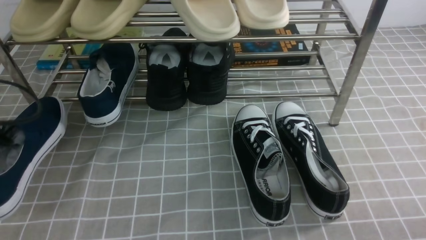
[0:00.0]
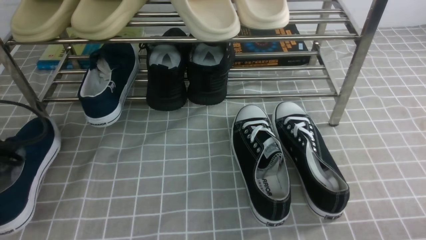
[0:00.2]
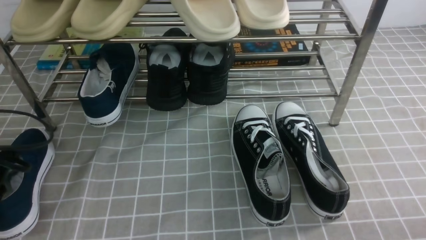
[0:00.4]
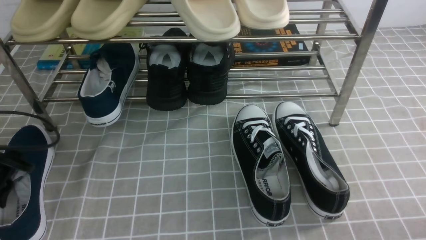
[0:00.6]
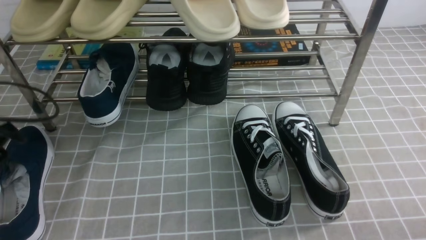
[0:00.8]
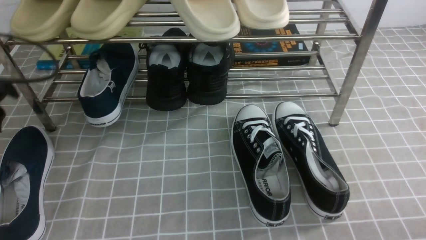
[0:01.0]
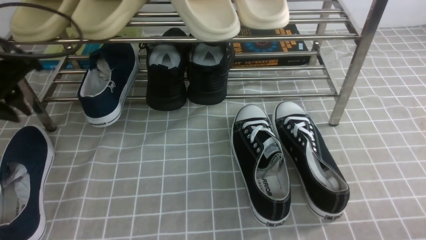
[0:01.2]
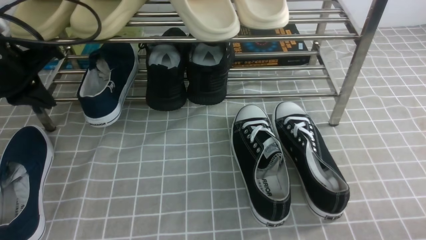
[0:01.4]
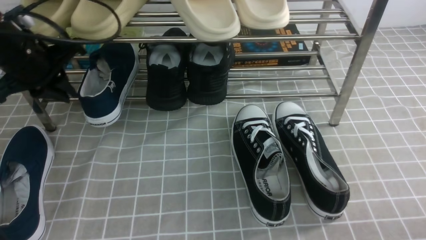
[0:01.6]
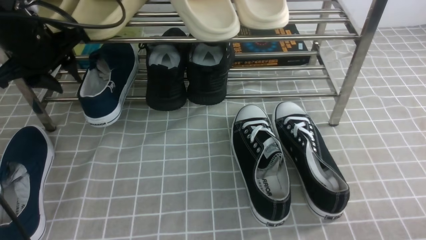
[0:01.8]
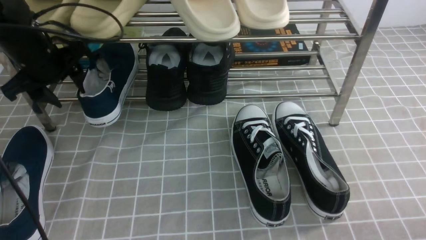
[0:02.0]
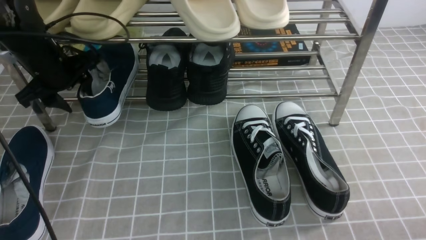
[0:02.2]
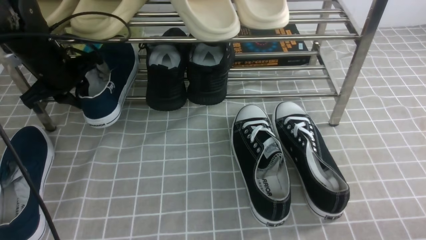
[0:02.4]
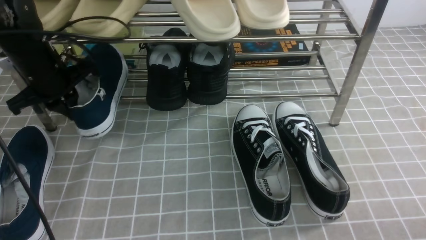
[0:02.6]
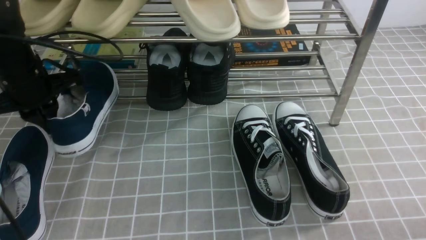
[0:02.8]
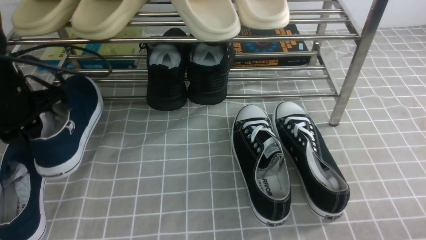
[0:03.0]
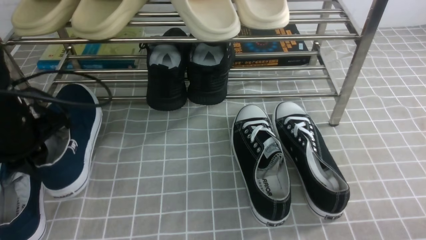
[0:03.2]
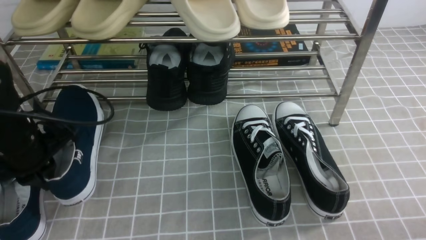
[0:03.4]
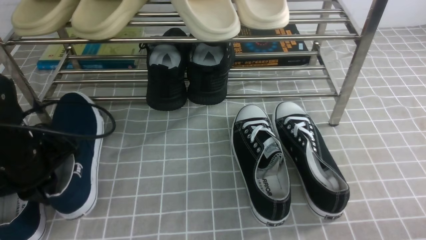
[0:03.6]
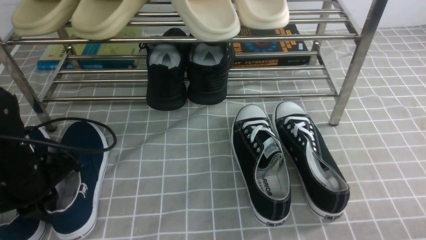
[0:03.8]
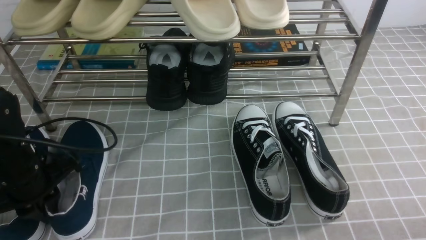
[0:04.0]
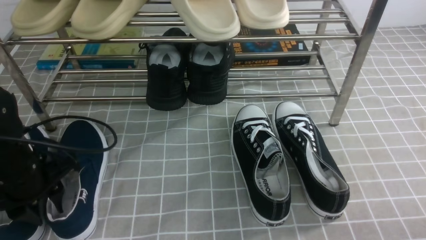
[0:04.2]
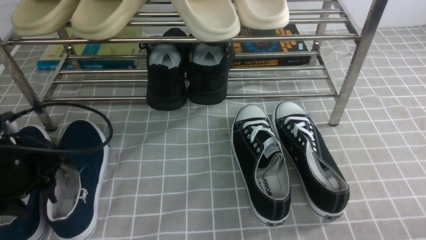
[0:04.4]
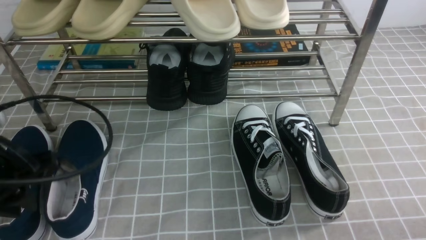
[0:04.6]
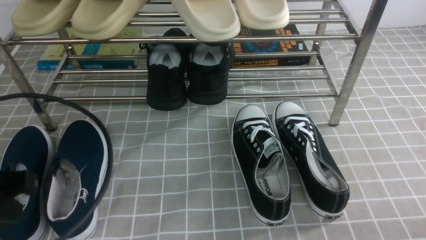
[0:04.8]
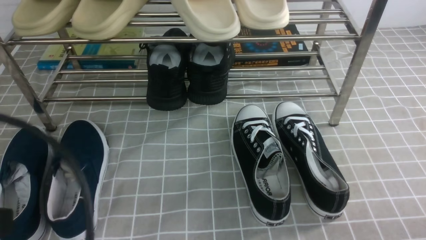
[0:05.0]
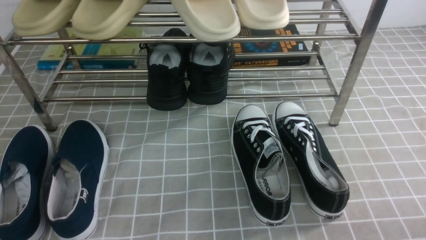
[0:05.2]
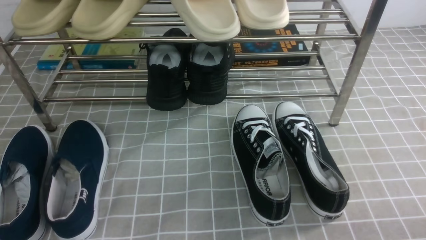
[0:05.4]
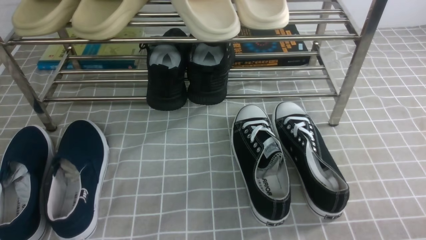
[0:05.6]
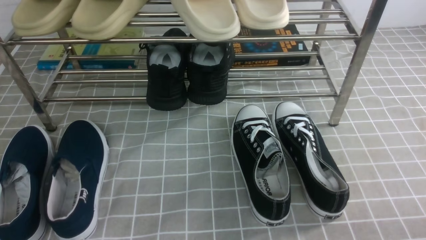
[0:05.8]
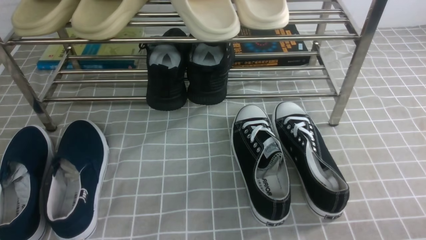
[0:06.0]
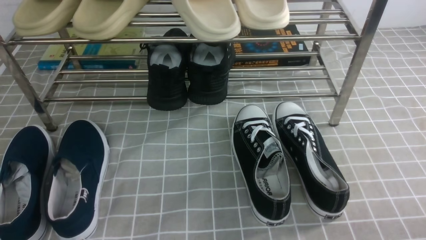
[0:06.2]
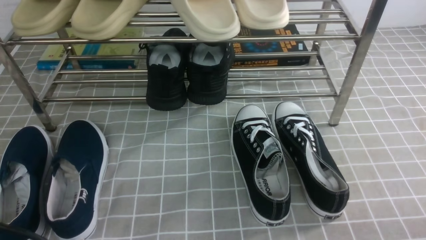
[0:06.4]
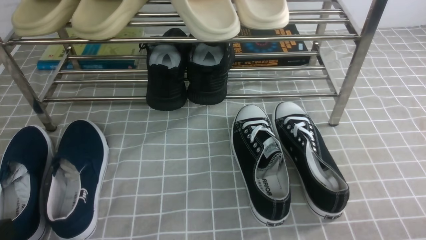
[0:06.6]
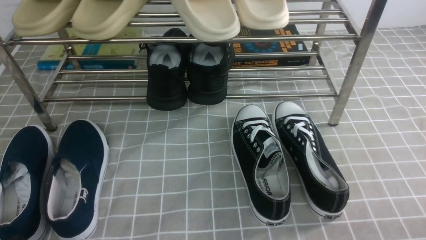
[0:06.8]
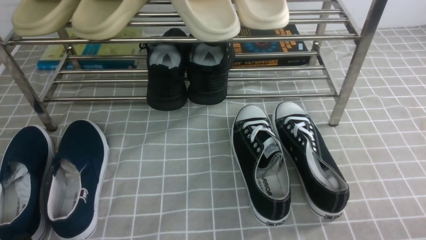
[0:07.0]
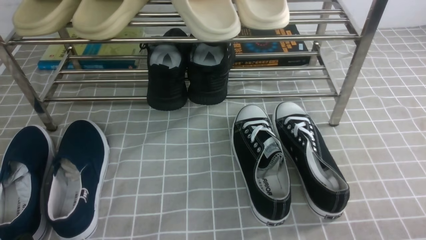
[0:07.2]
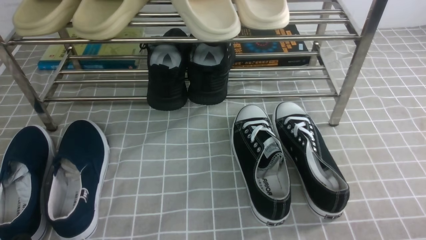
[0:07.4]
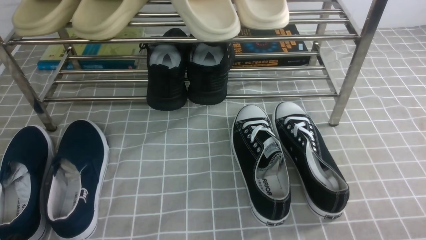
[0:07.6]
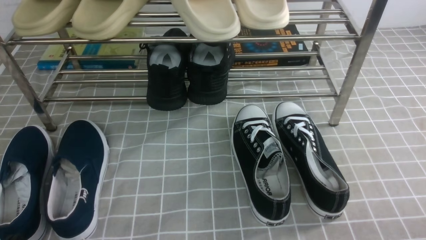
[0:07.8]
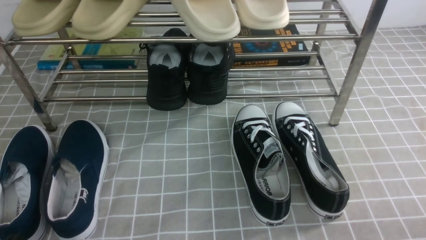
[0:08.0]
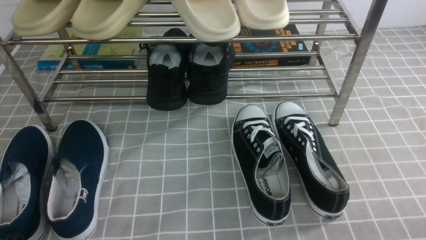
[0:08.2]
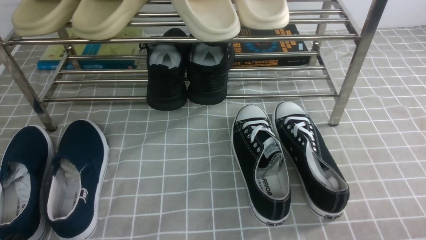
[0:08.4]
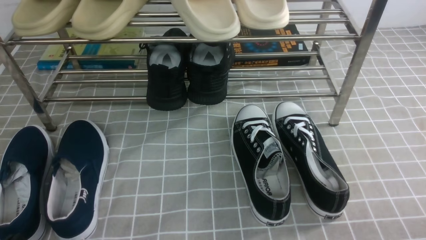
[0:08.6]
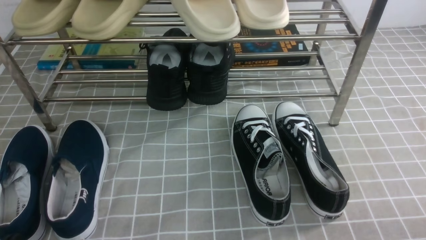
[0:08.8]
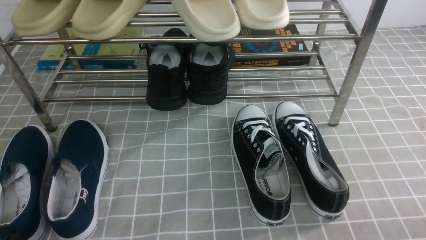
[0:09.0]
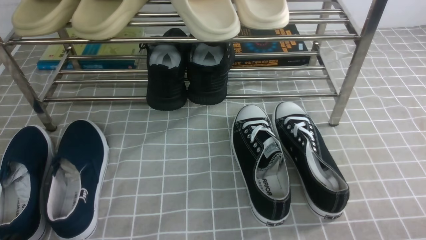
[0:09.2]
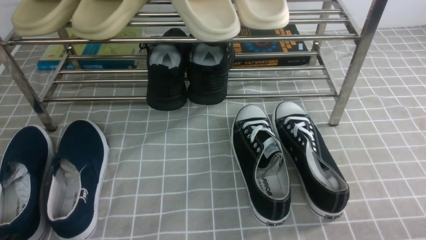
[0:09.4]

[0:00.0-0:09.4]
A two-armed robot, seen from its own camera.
Step, 0:01.0 to 0:02.6: use the left arm to clamp a shoe on the left side of the shoe rack.
Step, 0:02.8 to 0:04.4: Use your left arm to remove the clamped shoe from the shoe rack and put it down.
0:00.0 to 0:01.6: The left gripper heads forward and upward, covering roughly 10 cm, and opens and closes again.
0:01.6 to 0:03.2: The left gripper goes about 5 cm downward, and opens, then closes once more.
0:03.2 to 0:04.8: The left gripper moves backward, approximately 15 cm, and opens and closes again.
0:04.8 to 0:06.2: The left gripper travels backward by about 15 cm.
0:06.2 to 0:07.8: The left gripper goes about 20 cm downward.
0:07.8 to 0:09.4: Both grippers stay about where they are.
